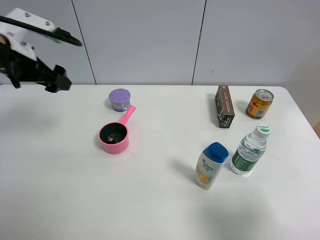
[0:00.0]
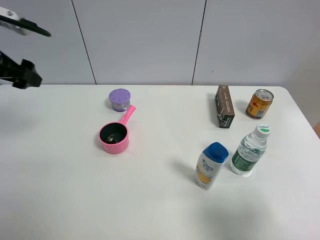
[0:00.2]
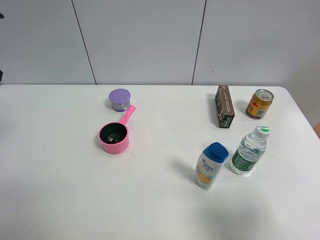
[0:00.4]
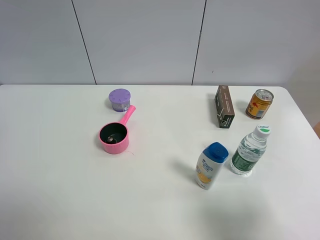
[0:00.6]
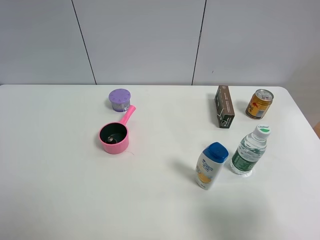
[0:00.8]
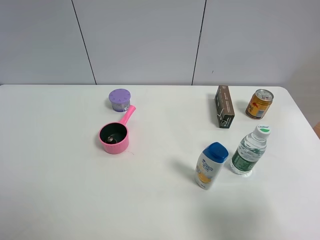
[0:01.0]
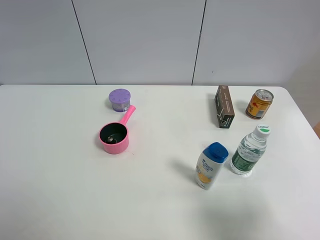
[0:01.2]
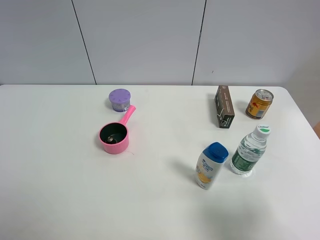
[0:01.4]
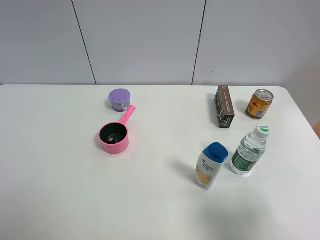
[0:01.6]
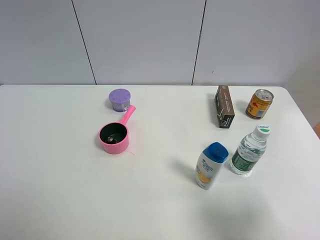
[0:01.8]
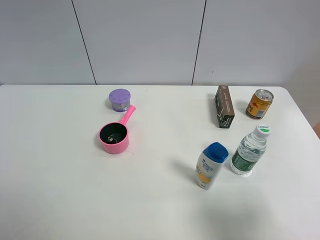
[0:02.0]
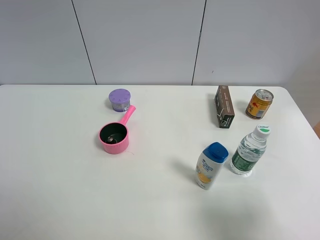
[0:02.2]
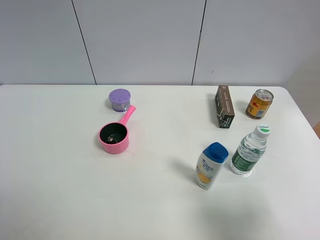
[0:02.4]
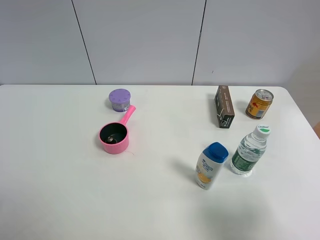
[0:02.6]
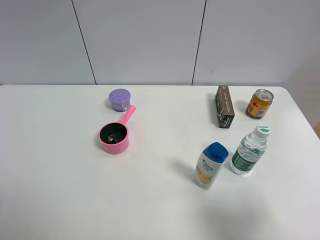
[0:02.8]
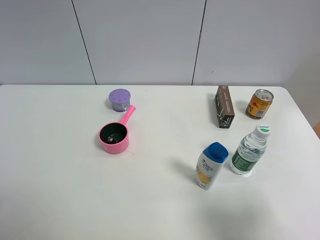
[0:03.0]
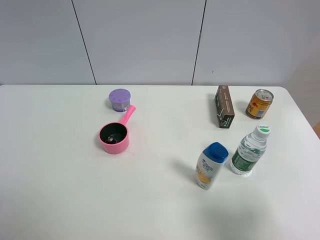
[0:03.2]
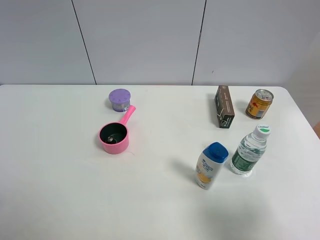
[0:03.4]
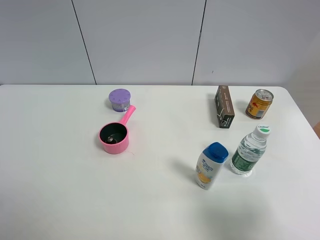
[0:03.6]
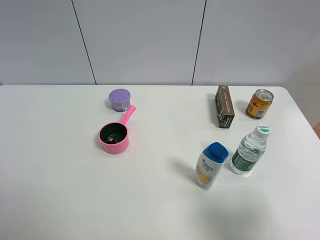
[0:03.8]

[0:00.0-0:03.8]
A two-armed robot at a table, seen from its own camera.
Task of the whole recording: the gripper move the object.
0:00.0 to 0:01.2: The left gripper shifts some 30 cm backward.
0:02.6 to 0:03.8: Both grippers stay put.

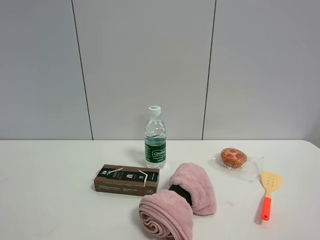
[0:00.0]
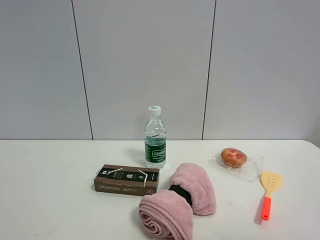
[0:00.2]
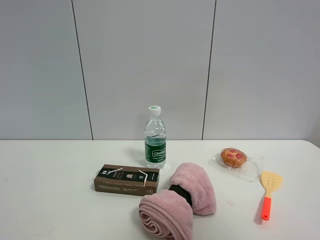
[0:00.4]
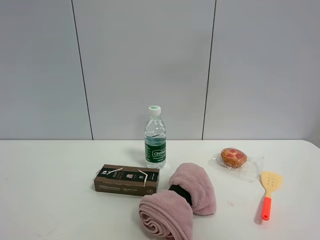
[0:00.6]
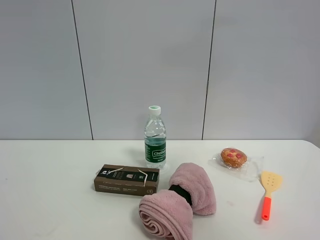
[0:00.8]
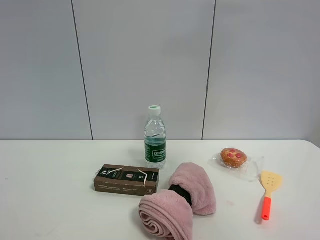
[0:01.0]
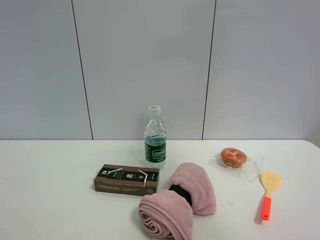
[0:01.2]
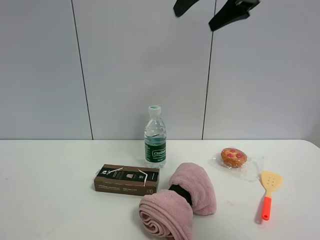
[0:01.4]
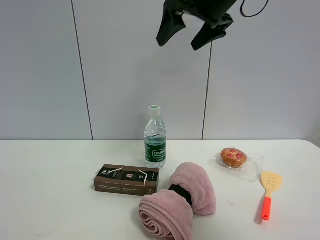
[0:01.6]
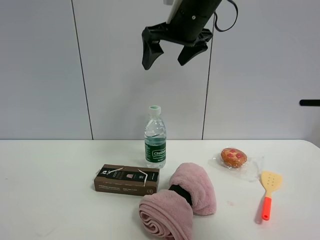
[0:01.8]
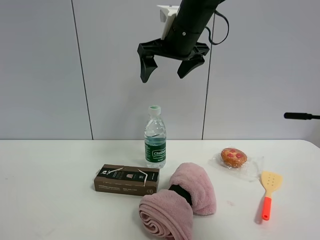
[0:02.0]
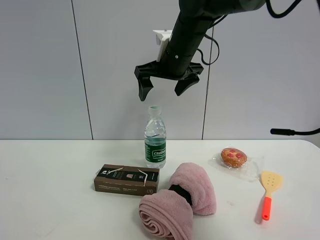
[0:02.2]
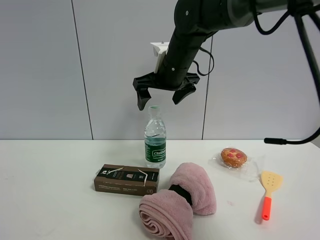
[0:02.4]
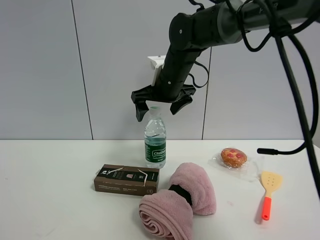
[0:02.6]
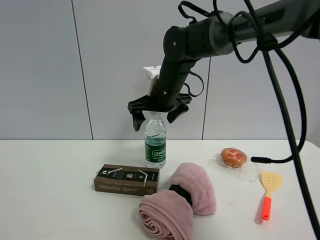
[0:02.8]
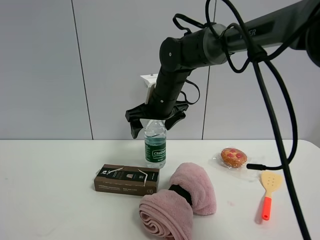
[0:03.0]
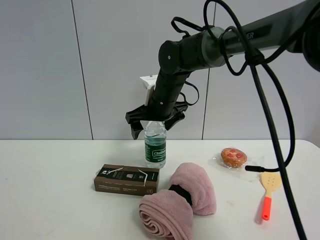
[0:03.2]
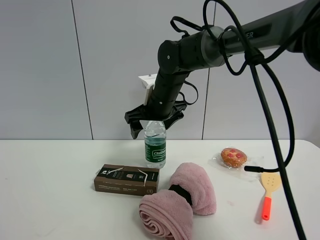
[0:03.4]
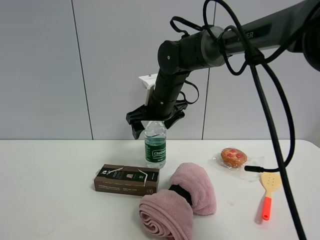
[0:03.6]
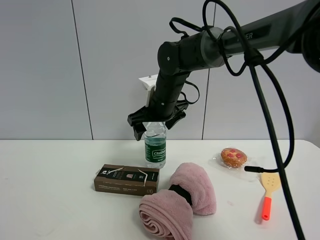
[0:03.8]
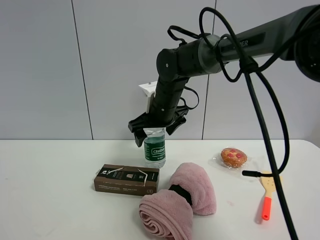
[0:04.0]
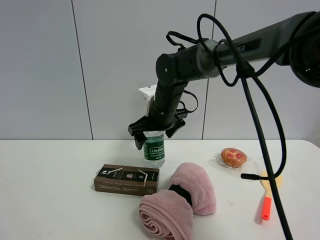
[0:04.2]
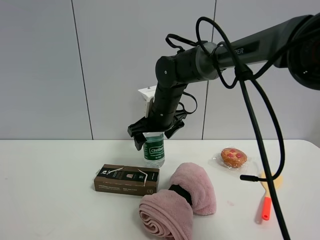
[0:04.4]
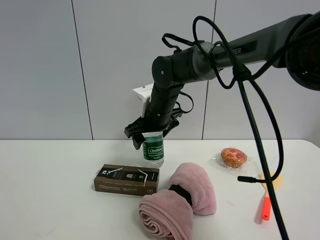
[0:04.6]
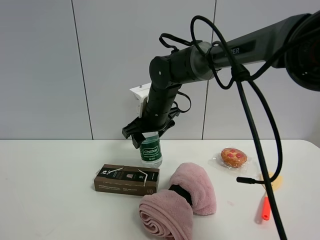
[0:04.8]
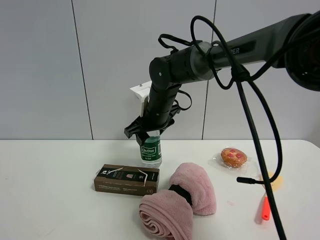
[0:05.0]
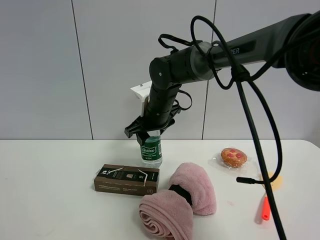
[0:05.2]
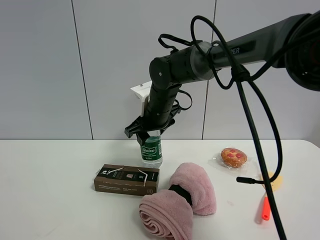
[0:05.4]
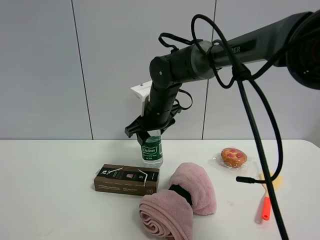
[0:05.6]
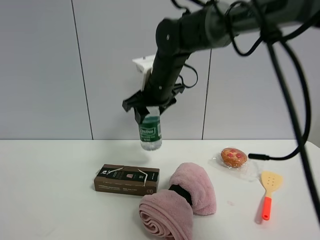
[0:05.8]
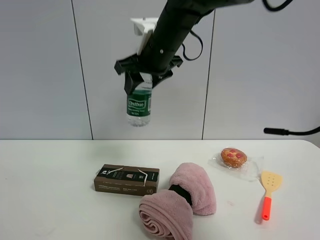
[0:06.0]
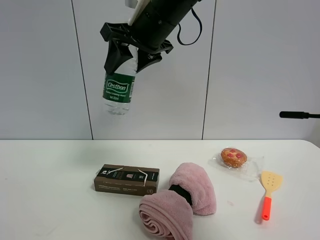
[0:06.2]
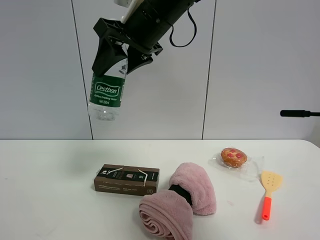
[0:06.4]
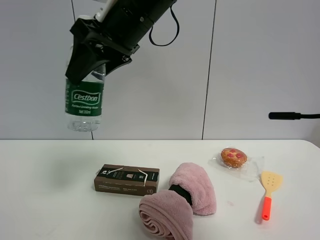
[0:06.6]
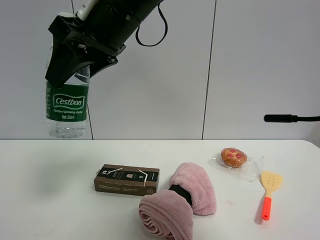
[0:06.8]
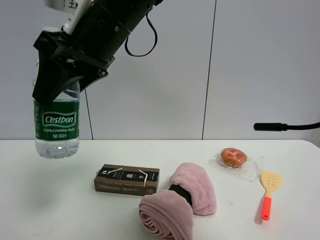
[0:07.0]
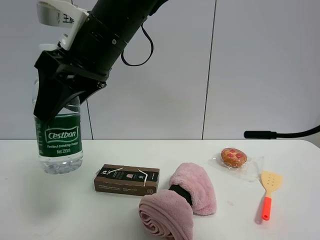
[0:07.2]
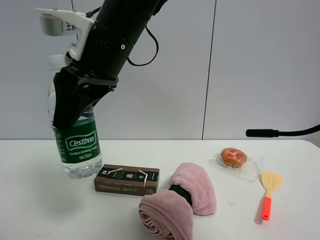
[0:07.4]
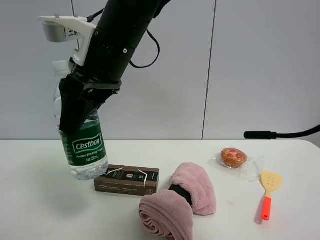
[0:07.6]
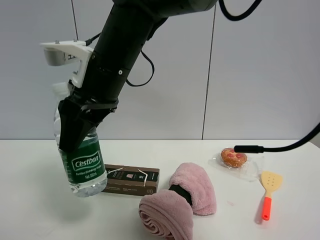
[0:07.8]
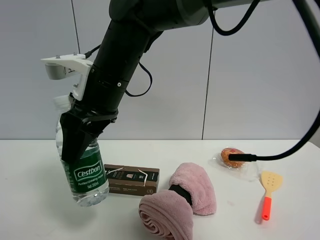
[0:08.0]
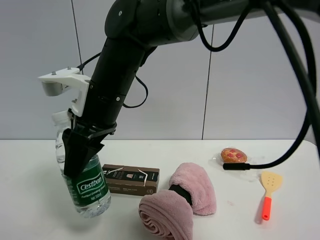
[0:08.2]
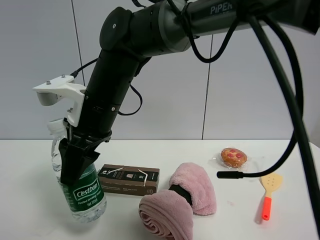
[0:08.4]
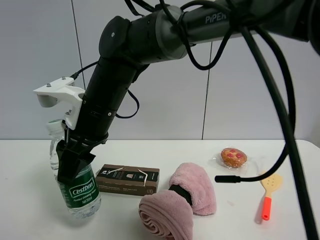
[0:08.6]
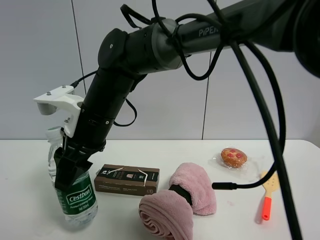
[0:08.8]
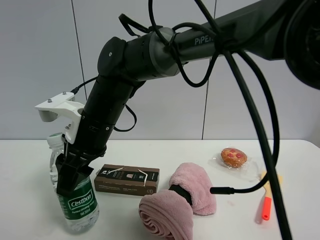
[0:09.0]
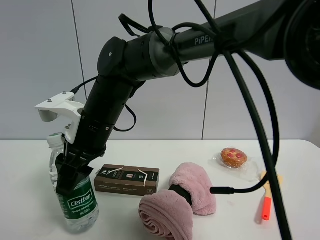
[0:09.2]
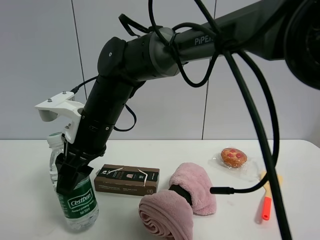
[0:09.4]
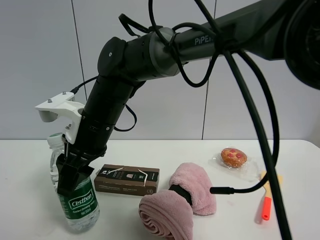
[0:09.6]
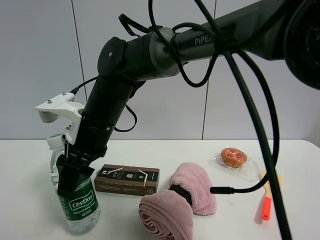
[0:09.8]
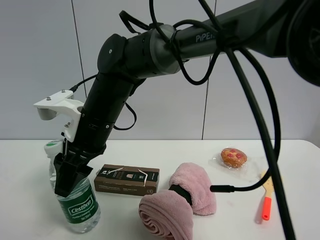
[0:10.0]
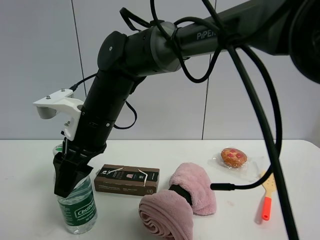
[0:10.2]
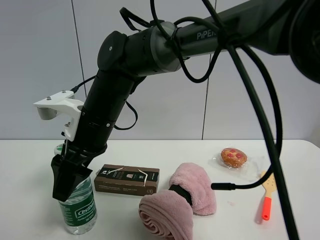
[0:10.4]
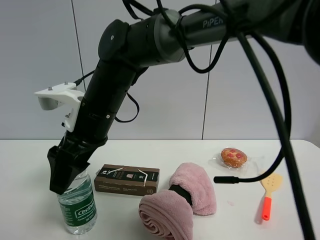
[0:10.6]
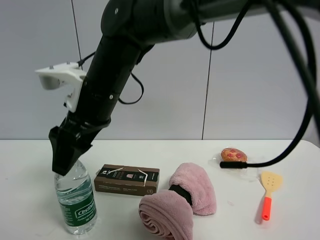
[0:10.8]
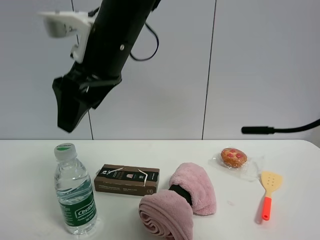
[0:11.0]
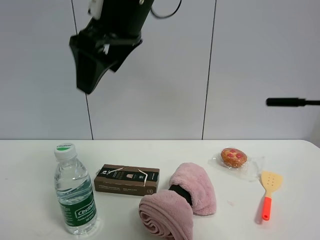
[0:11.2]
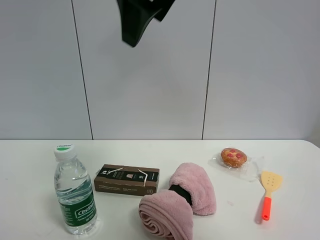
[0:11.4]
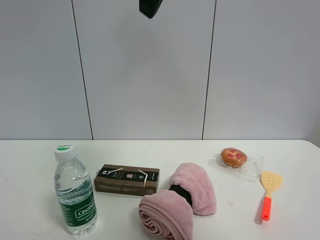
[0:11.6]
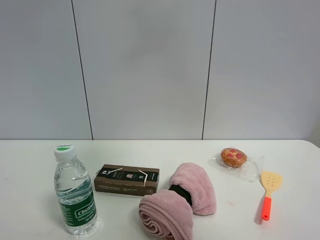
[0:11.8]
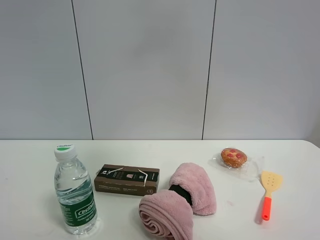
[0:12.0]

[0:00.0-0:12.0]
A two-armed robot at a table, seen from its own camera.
Task of the whole recording: the gripper move the object.
Step, 0:00.0 to 0:04.8: Grasp the YiBao mineral water with the right gripper.
Step, 0:05.0 to 0:10.4: Place the YiBao mineral water on the table with the right gripper.
0:00.0 to 0:01.6: The right gripper shifts some 40 cm forward and to the left.
0:01.6 to 0:03.0: The right gripper heads downward and to the left, covering roughly 20 cm.
0:03.0 to 0:04.4: The grippers make only small movements.
0:04.4 to 0:06.0: The right gripper moves upward, approximately 15 cm, and closes up.
0:06.0 to 0:07.6: The right gripper heads backward and to the left, covering roughly 10 cm.
0:07.6 to 0:09.0: The right gripper moves downward, roughly 10 cm.
0:09.0 to 0:10.4: The right gripper opens up.
0:10.4 to 0:12.0: The right gripper heads upward and to the right, covering approximately 40 cm, and opens.

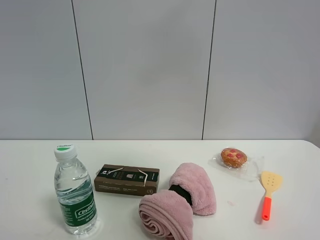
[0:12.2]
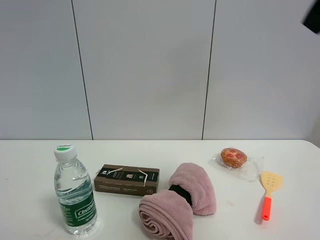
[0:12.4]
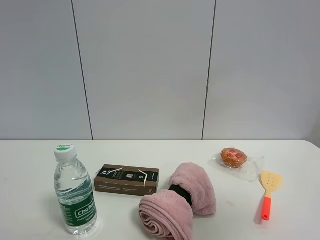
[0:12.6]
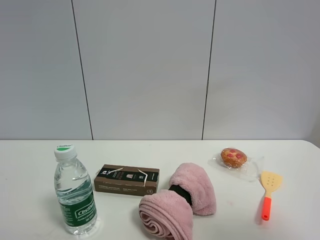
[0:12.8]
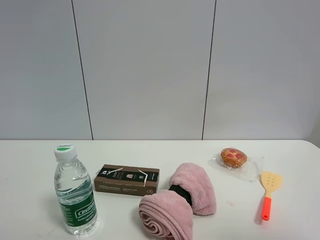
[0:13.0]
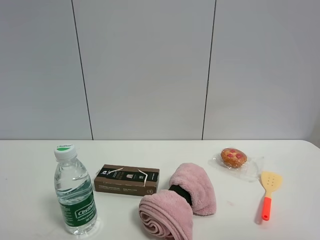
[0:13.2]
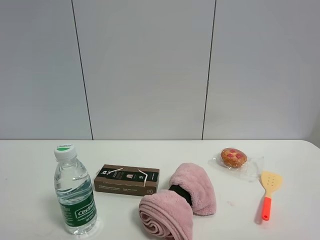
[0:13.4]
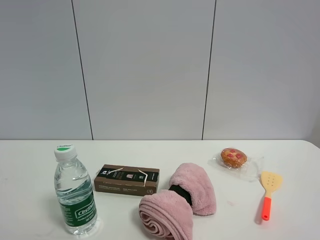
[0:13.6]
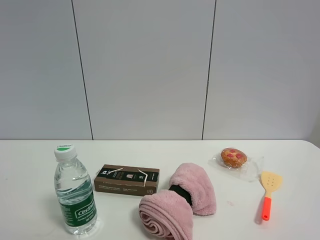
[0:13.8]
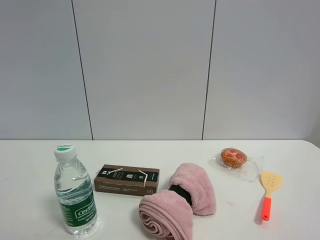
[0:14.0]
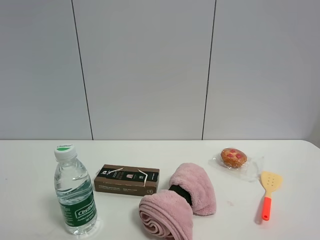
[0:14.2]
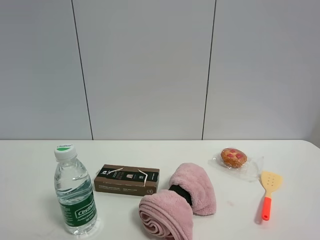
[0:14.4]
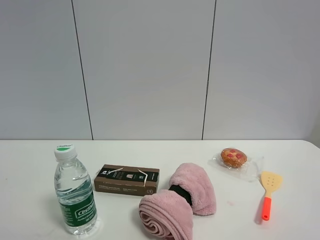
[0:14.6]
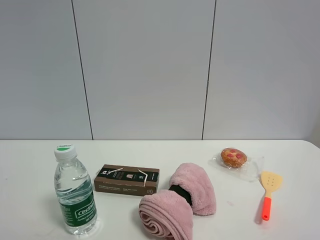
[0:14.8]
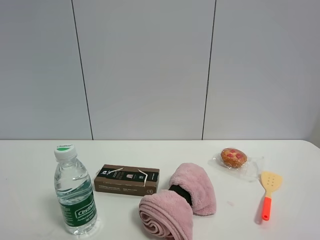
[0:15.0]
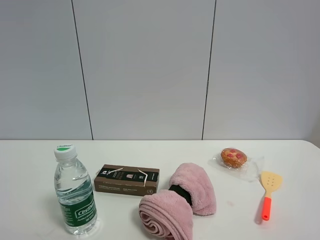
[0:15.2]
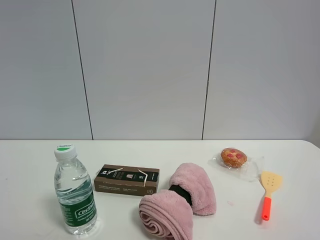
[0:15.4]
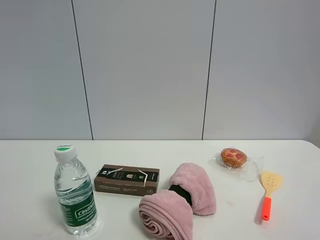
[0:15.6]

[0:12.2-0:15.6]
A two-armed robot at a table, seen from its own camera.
Task of the whole recording: the gripper move the object.
0:12.2 to 0:13.8: The right gripper goes approximately 30 cm downward, backward and to the right.
0:13.8 to 0:15.6: Both grippers stay put.

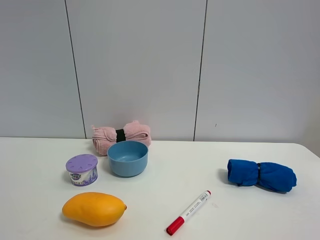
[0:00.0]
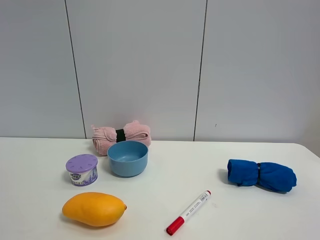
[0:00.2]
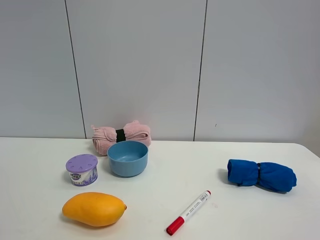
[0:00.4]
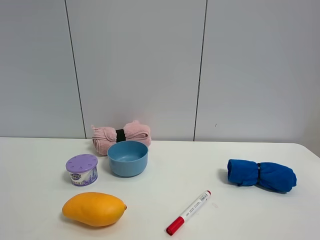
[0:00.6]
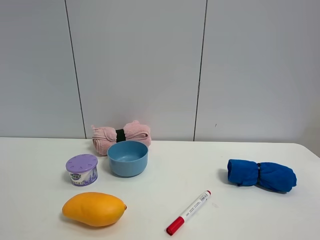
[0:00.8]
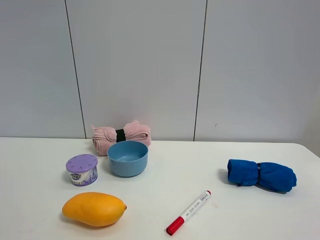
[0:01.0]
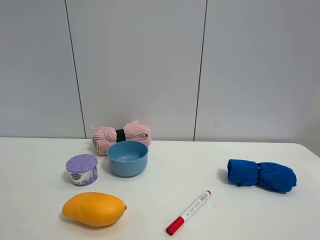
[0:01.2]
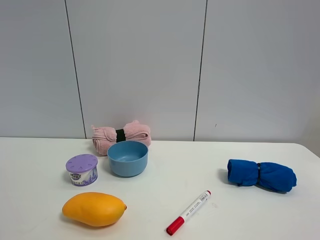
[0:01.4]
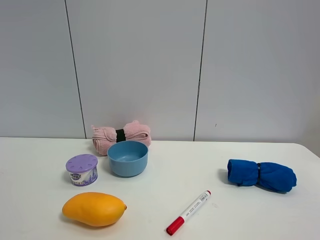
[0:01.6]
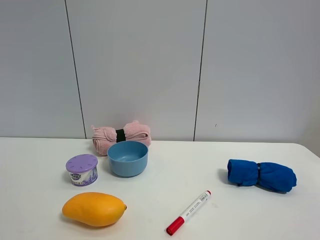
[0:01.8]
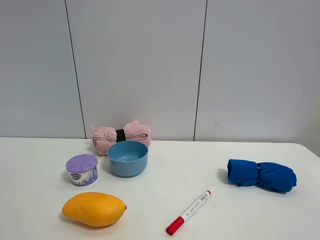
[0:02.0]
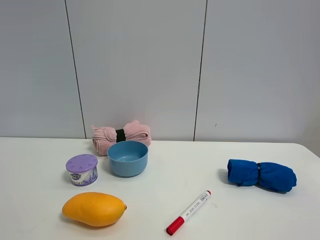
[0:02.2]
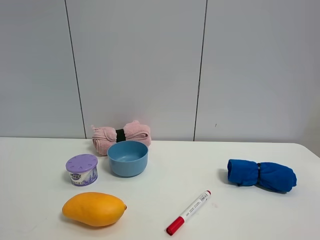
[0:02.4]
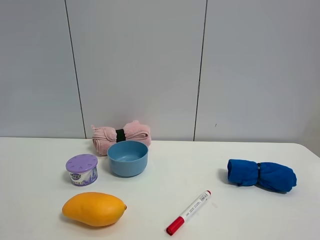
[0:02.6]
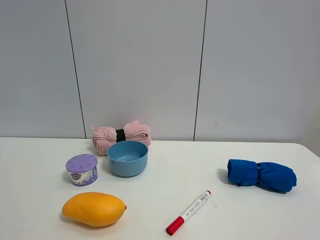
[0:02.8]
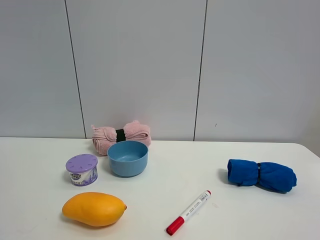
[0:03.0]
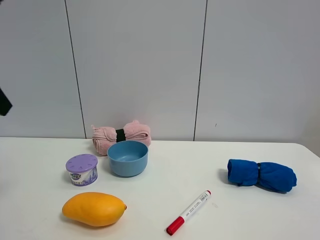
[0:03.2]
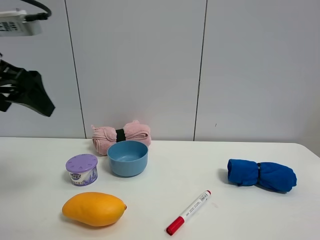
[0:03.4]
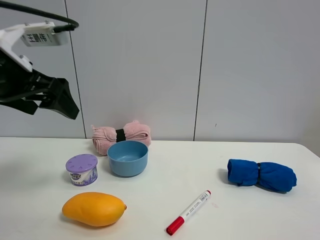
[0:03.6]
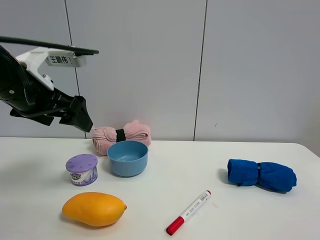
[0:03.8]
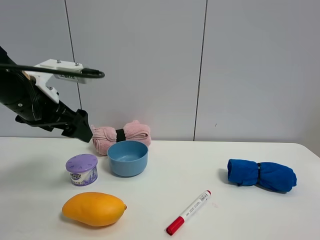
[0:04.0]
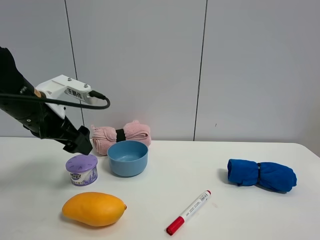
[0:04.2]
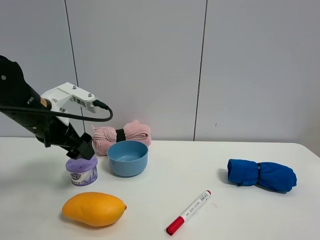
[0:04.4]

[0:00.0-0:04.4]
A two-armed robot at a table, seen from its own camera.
Task of the whole recording: the gripper move the object.
0:00.0 to 0:01.4: Both grippers stay put.
0:03.0 to 0:04.4: The left gripper heads downward, forward and to the right, covering roughly 20 cm.
